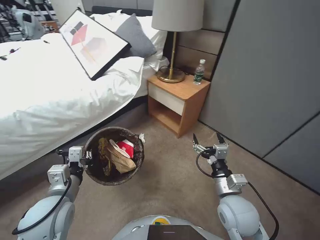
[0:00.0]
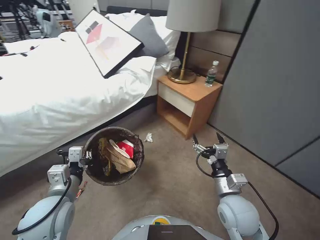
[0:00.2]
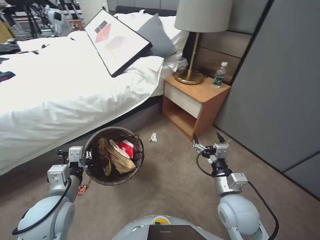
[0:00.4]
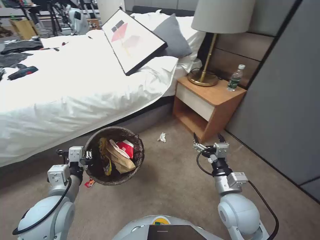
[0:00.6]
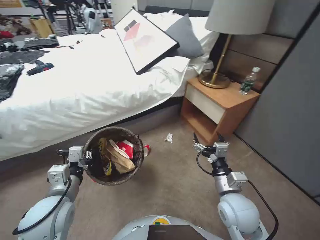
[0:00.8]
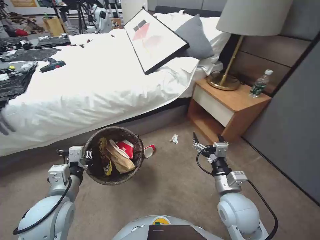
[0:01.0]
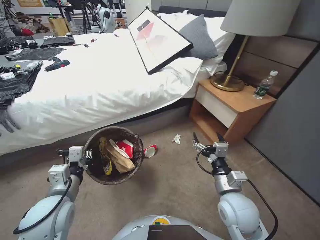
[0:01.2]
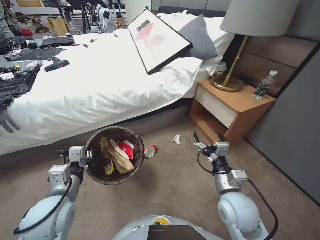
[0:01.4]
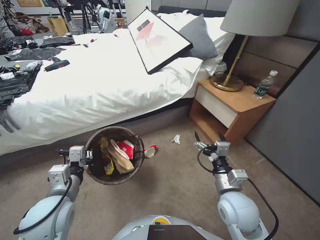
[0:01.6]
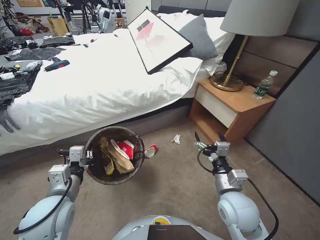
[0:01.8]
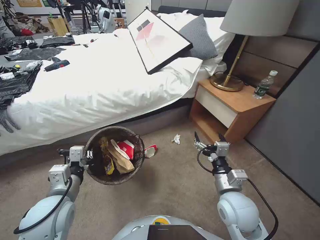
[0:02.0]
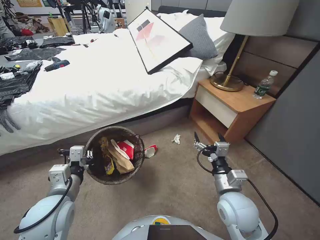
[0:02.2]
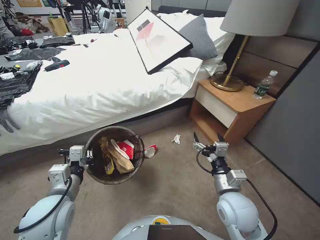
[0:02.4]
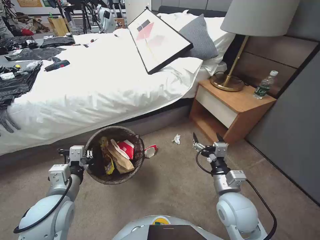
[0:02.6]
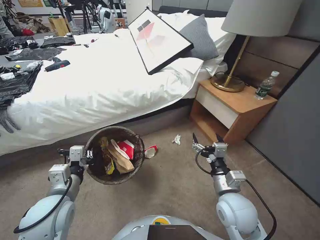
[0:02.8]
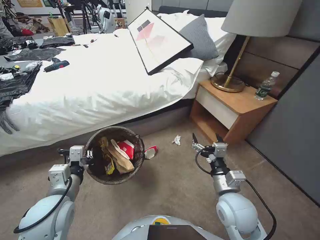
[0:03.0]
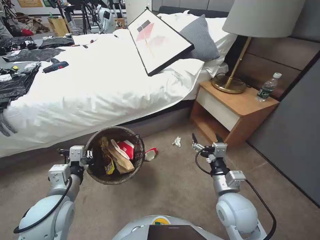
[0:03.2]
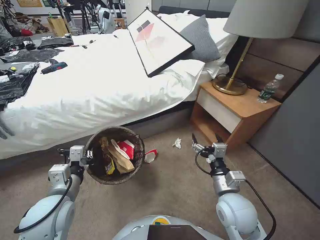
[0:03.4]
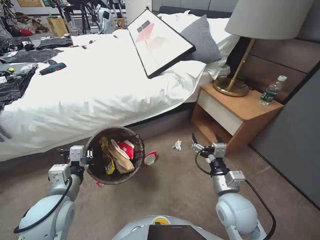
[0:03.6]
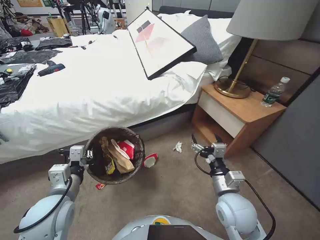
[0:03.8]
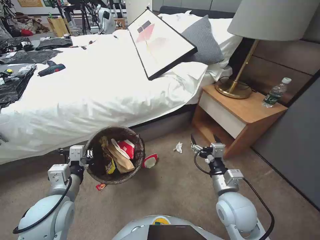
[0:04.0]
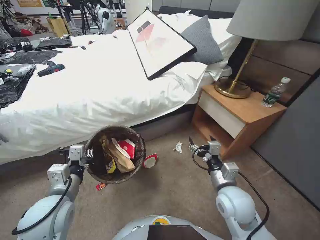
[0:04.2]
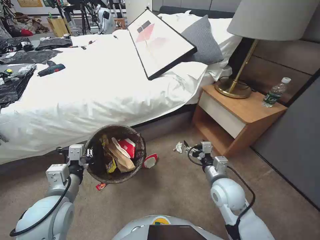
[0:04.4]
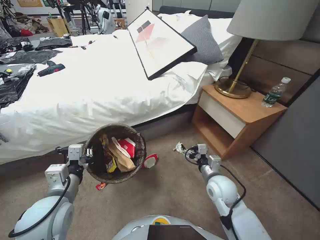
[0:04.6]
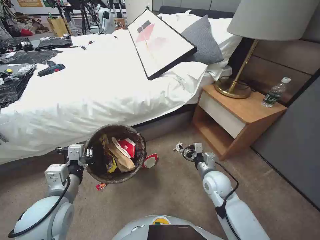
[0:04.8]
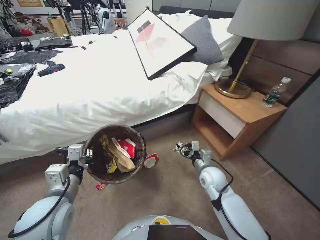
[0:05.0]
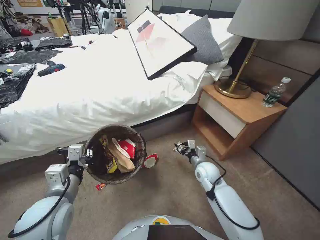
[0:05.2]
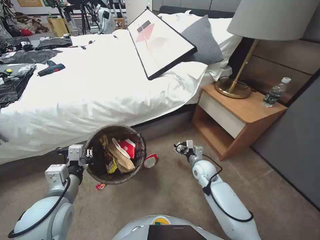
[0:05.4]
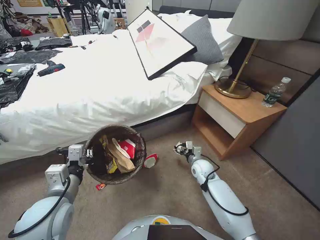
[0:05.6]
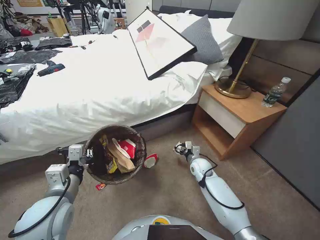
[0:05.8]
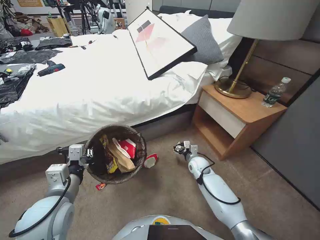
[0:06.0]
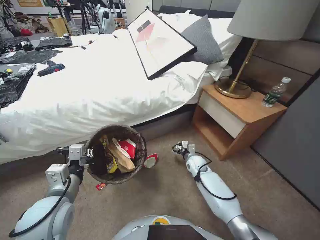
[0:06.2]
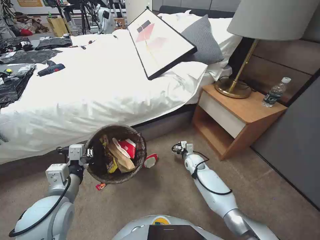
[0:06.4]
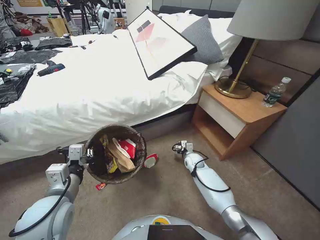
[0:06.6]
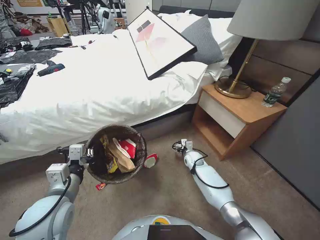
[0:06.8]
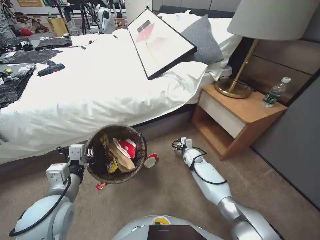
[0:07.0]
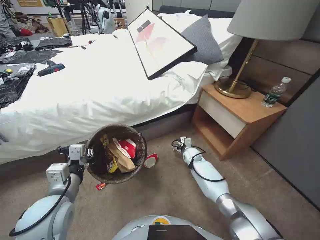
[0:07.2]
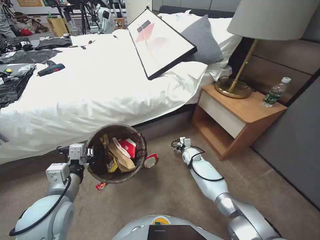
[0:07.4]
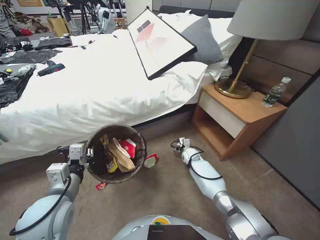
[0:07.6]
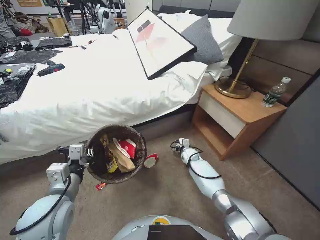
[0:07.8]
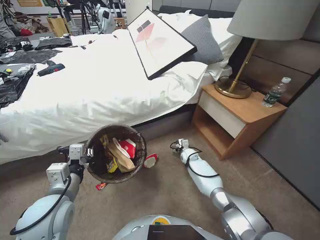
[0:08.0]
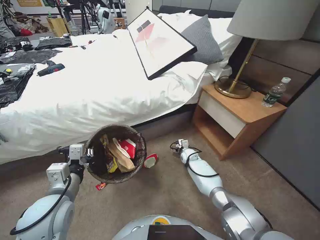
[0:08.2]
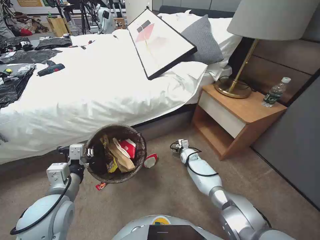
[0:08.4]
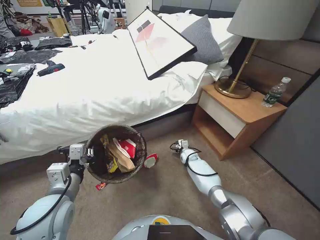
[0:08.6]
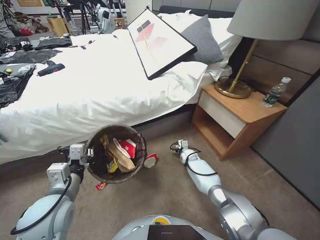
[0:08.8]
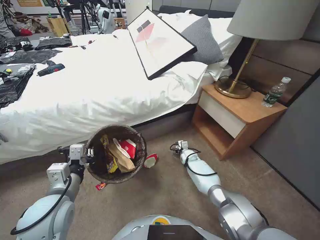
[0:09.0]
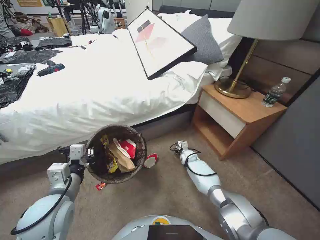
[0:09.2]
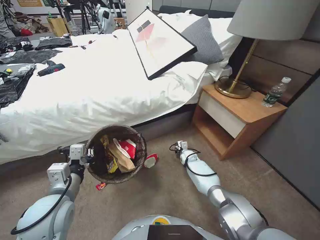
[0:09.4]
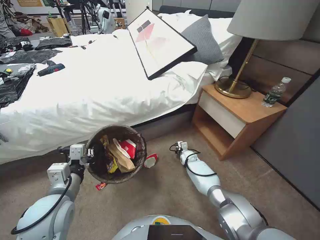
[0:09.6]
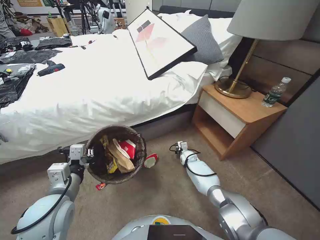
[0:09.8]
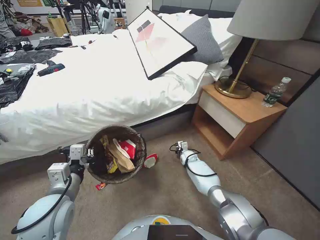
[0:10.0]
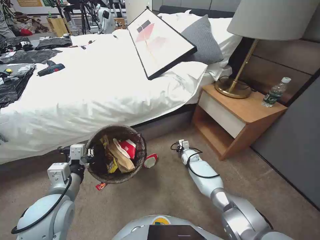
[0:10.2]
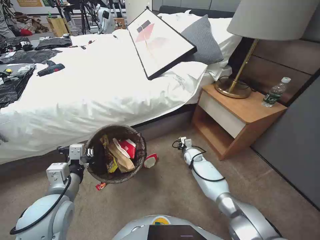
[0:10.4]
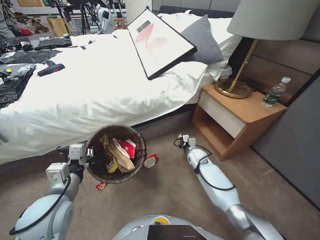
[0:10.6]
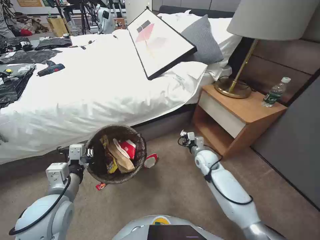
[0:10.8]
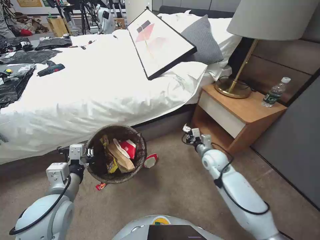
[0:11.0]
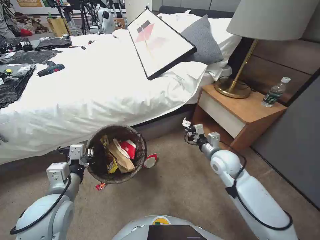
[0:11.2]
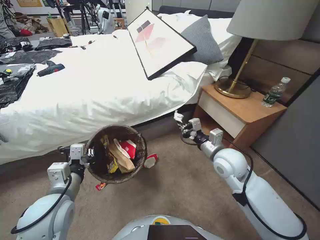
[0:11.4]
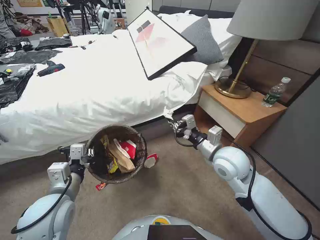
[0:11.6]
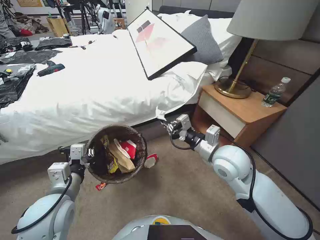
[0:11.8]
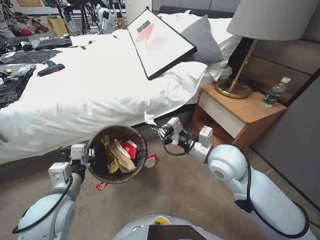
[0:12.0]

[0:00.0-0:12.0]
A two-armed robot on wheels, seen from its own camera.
Task of the whole recording: Pick up the trash bin, then pick up the garbage from the floor and place it into the trash bin.
0:01.6 to 0:03.0: Both grippers stay about where they are.
0:04.4 to 0:06.0: The right gripper shifts approximately 25 cm forward and downward.
0:06.0 to 0:07.6: The right gripper heads forward, covering approximately 10 cm.
0:07.6 to 0:09.0: The grippers move only a little.
0:09.0 to 0:10.4: The right gripper closes its fingers.
0:10.4 to 0:12.0: The right gripper travels upward and backward by some 40 cm.

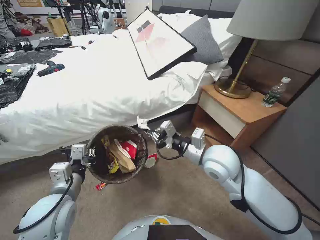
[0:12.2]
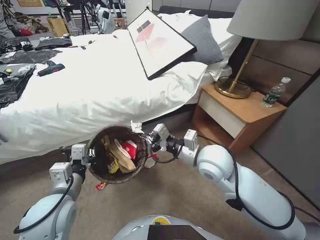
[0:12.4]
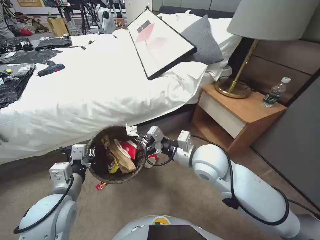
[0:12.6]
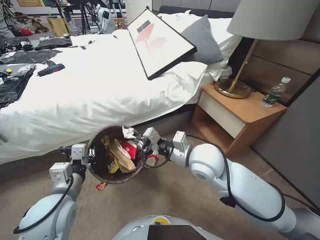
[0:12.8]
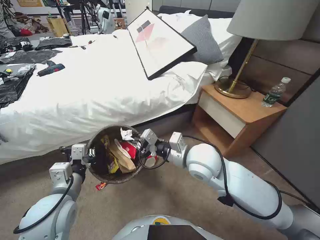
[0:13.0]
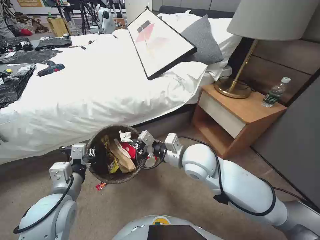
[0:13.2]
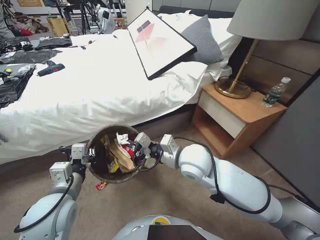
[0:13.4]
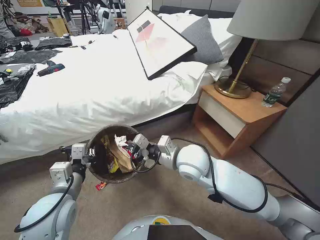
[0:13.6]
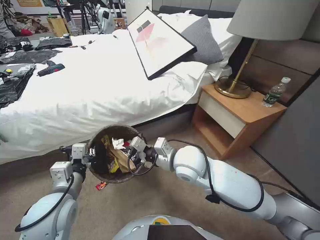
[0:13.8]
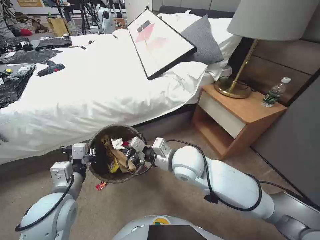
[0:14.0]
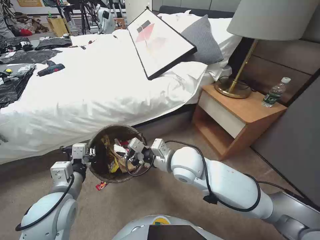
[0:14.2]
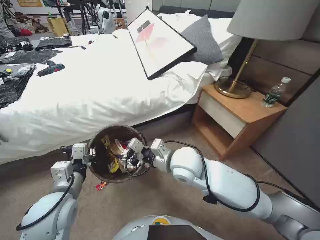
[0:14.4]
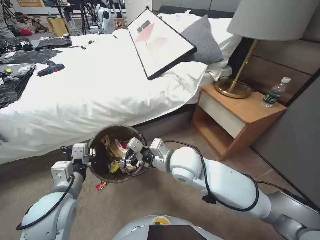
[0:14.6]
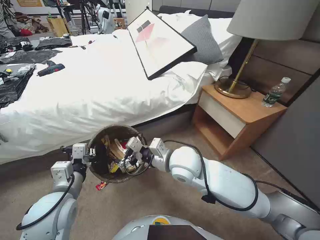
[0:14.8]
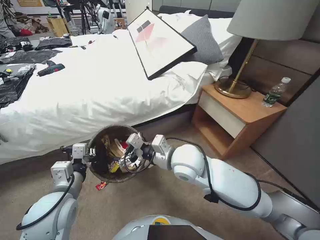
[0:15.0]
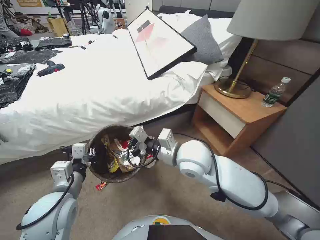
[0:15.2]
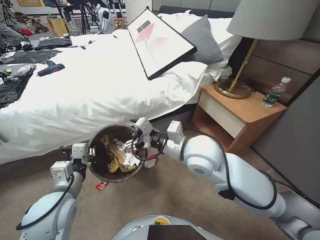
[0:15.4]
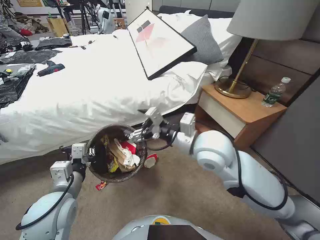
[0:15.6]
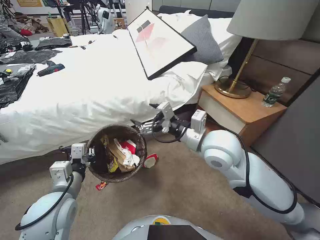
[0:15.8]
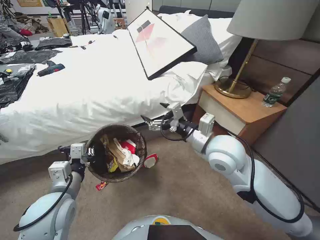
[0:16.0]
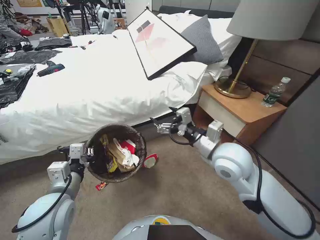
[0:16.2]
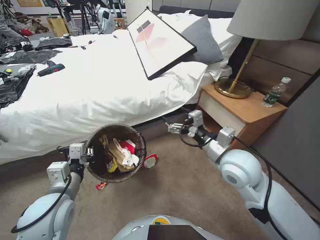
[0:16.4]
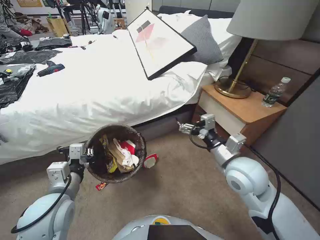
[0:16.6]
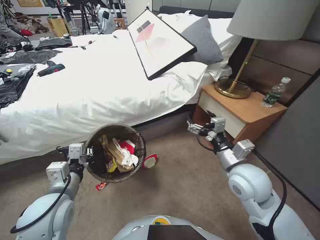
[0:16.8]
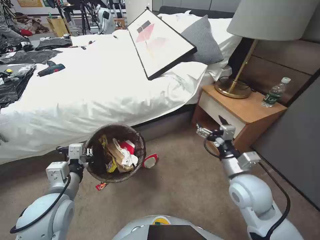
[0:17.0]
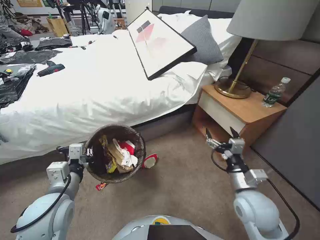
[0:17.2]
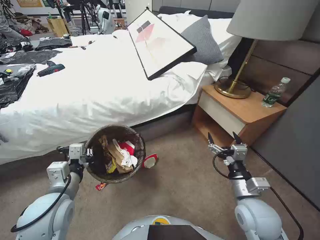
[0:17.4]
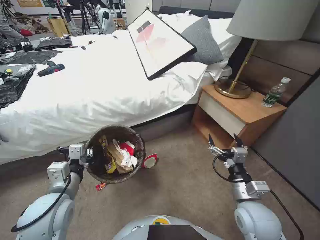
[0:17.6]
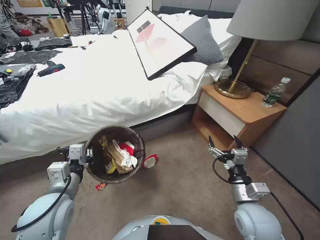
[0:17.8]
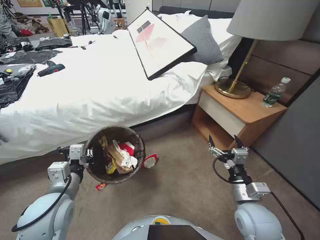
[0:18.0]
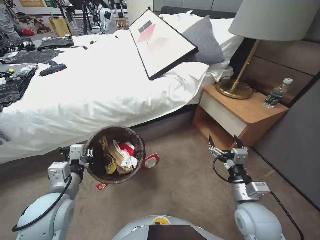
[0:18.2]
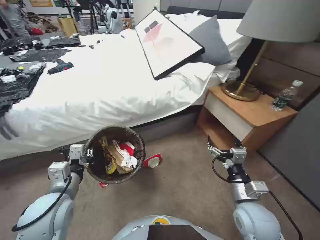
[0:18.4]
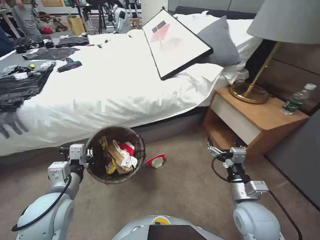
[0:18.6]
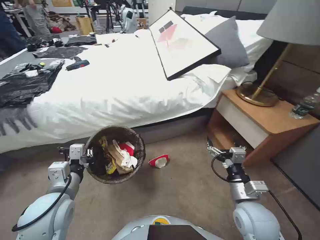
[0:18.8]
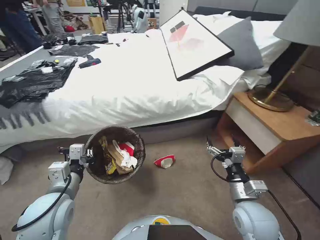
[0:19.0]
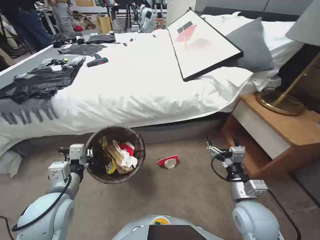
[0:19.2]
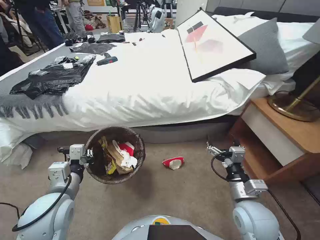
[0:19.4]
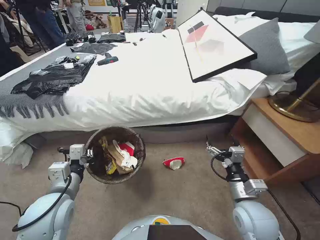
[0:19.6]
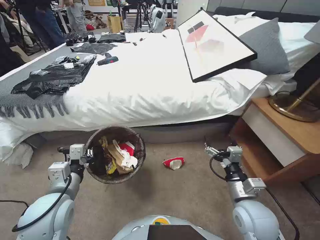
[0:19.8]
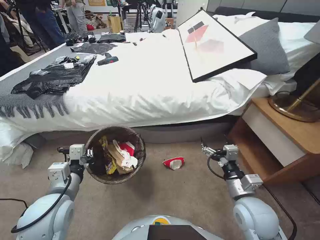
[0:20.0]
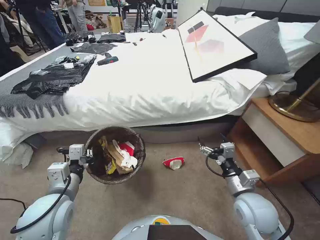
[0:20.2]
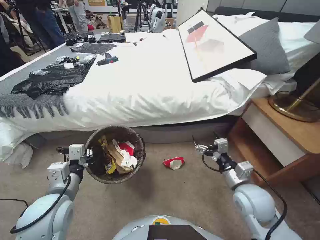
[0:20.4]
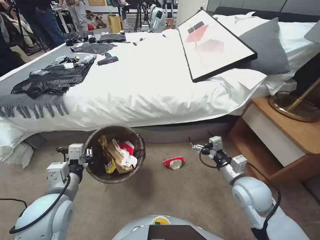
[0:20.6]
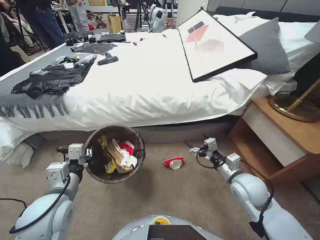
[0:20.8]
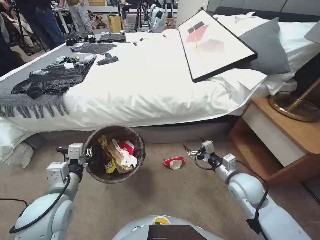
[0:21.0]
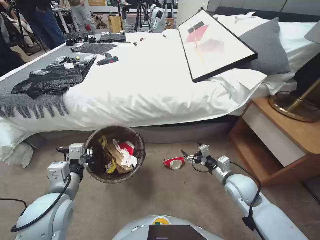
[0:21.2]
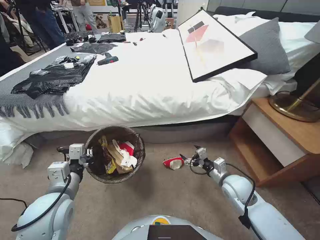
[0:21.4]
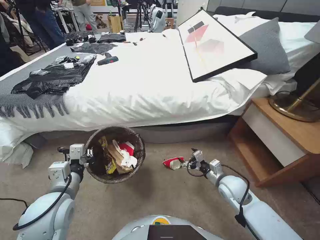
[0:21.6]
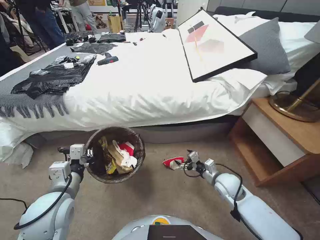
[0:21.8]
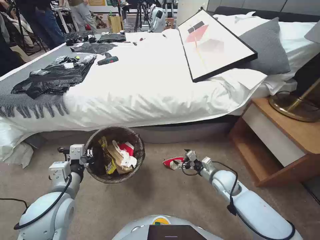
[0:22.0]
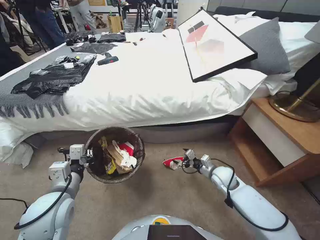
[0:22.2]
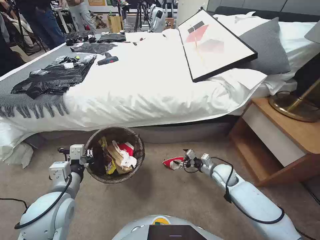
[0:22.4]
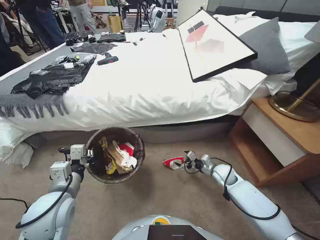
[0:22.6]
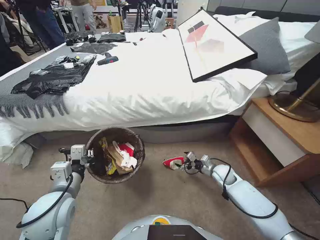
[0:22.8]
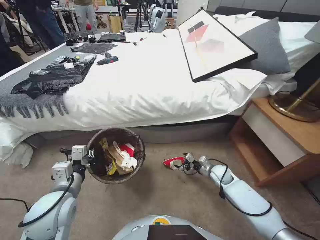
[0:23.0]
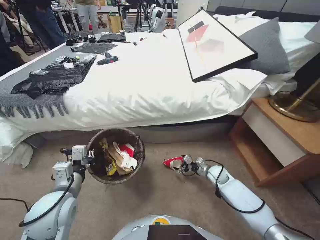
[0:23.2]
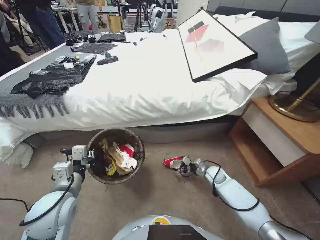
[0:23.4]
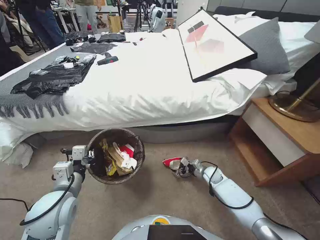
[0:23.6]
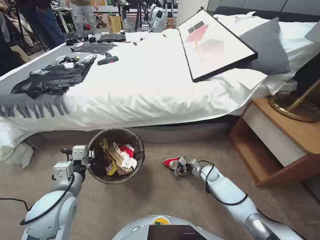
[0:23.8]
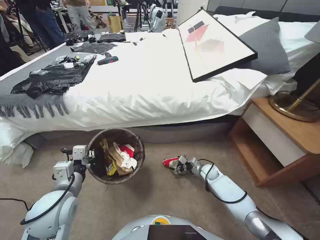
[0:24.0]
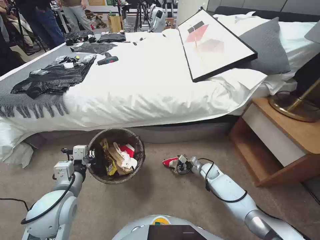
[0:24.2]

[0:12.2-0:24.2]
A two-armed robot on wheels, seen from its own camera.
Task of the whole recording: Pick up the trash bin, then pick up the garbage from the floor and place it into the trash bin.
0:12.2 to 0:13.8: The right gripper is displaced to the left by roughly 10 cm.
0:13.8 to 0:15.2: The right gripper opens.
0:15.2 to 0:16.6: The right gripper is displaced to the right by roughly 15 cm.
0:16.6 to 0:18.2: The right gripper moves downward and backward, roughly 15 cm.
0:19.8 to 0:21.2: The right gripper is displaced forward by about 10 cm.
0:21.2 to 0:22.6: The right gripper heads downward and forward, covering some 15 cm.
0:22.6 to 0:24.2: The right gripper goes roughly 10 cm downward.
